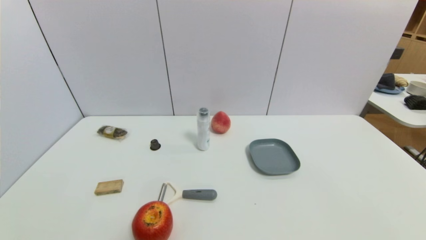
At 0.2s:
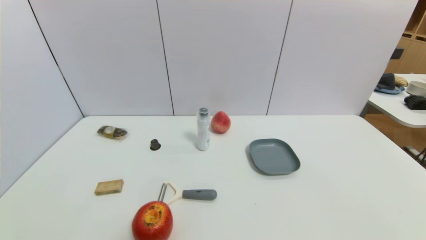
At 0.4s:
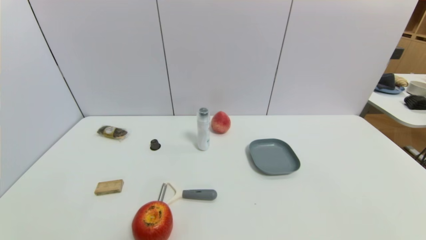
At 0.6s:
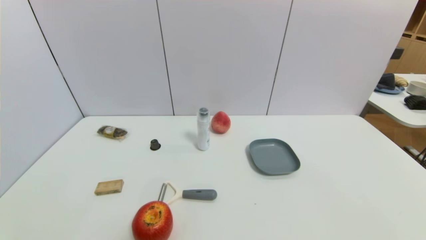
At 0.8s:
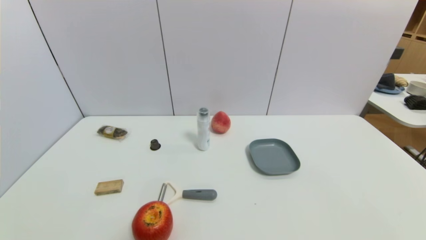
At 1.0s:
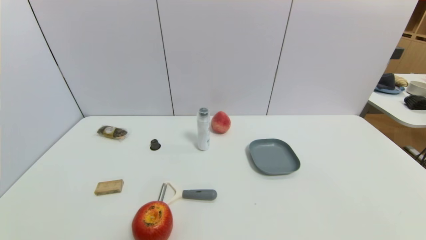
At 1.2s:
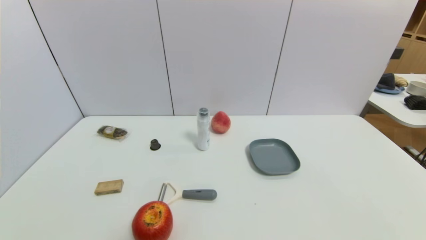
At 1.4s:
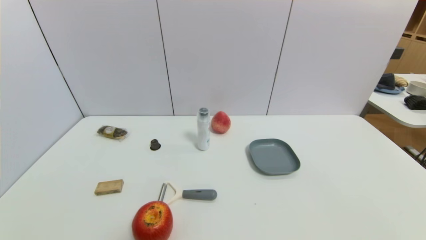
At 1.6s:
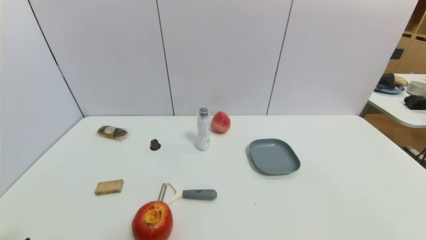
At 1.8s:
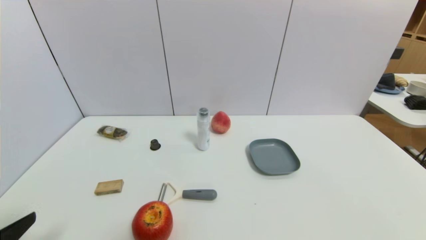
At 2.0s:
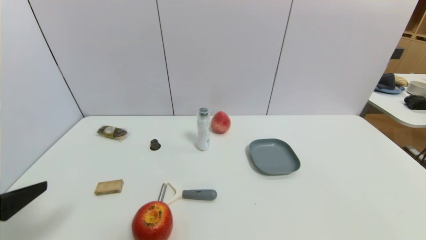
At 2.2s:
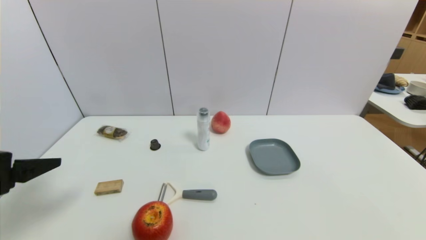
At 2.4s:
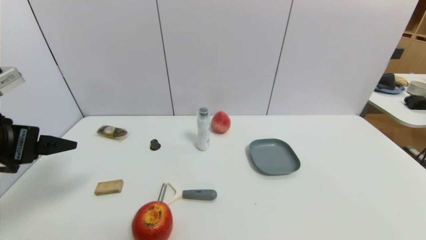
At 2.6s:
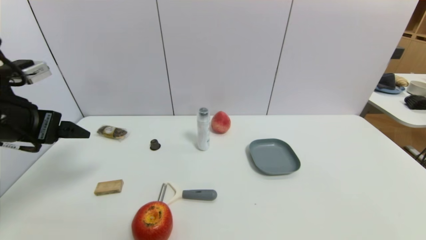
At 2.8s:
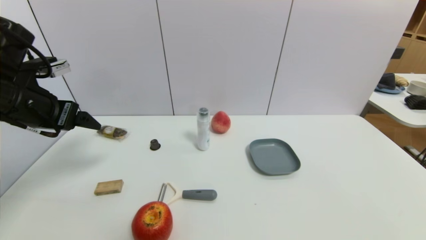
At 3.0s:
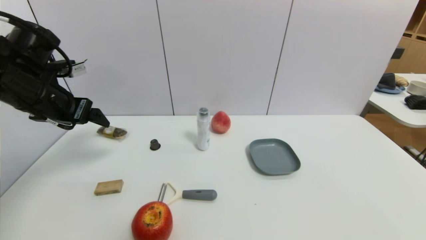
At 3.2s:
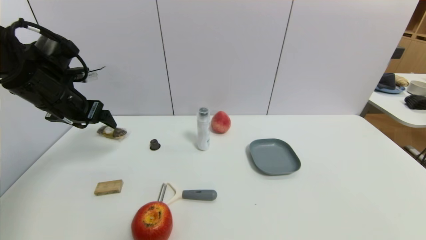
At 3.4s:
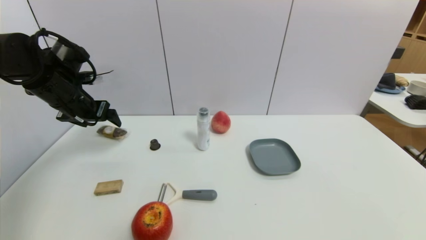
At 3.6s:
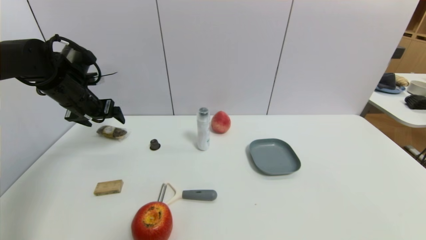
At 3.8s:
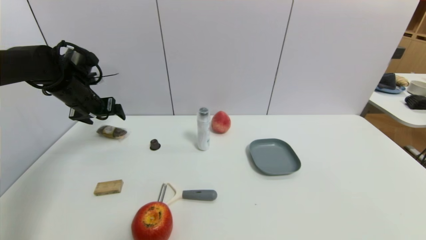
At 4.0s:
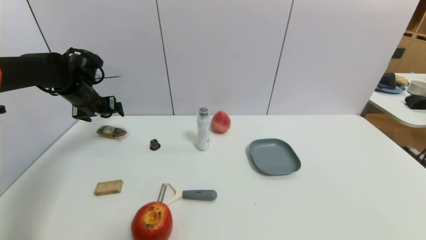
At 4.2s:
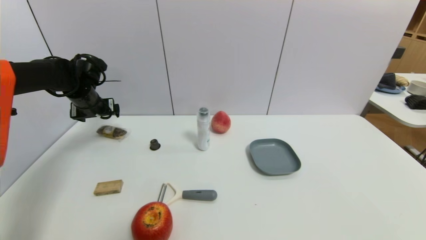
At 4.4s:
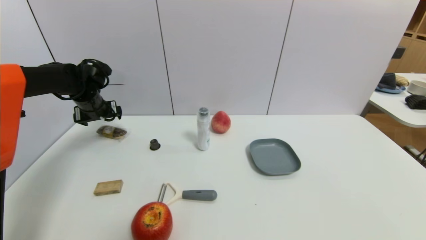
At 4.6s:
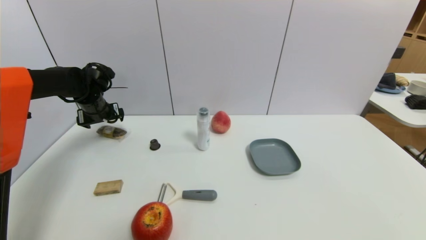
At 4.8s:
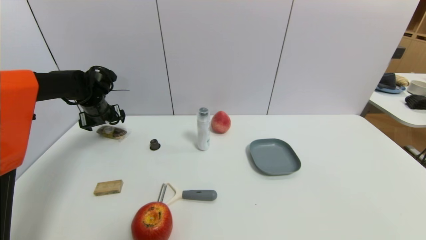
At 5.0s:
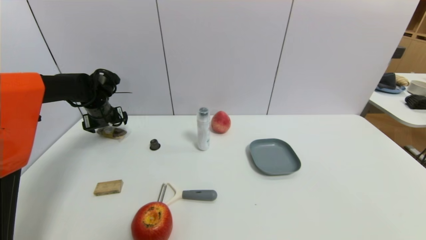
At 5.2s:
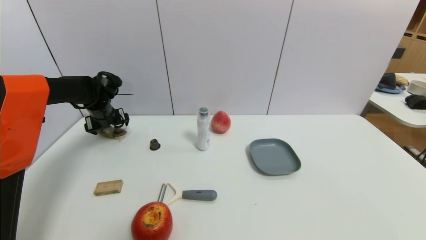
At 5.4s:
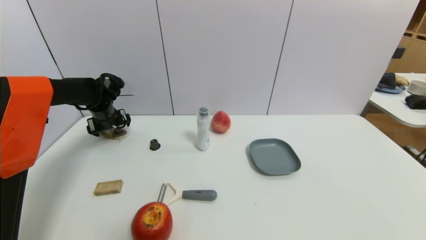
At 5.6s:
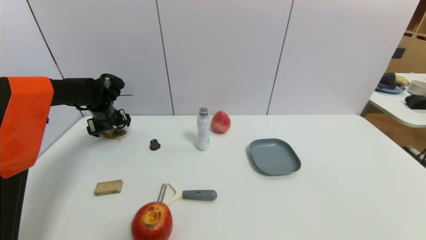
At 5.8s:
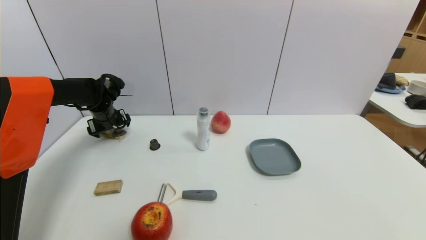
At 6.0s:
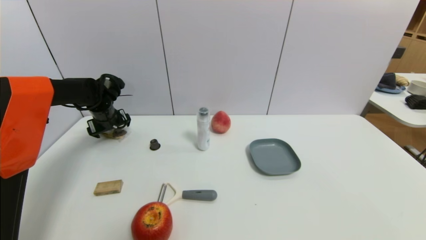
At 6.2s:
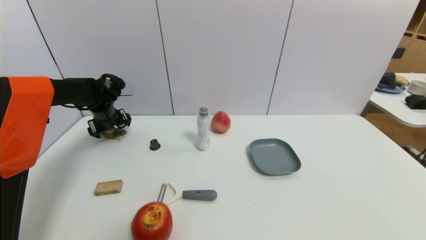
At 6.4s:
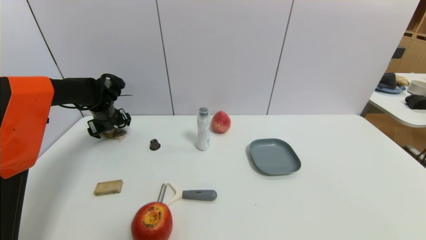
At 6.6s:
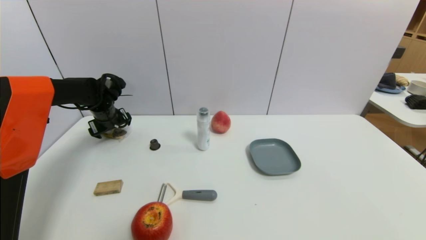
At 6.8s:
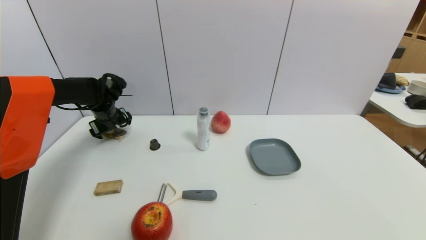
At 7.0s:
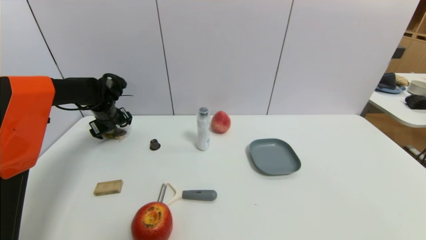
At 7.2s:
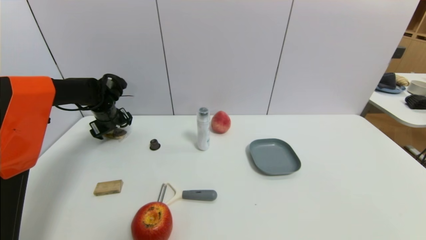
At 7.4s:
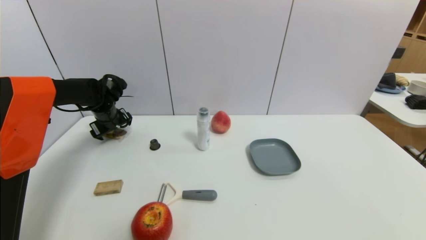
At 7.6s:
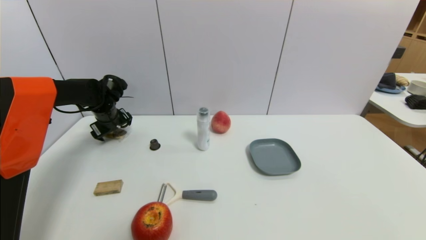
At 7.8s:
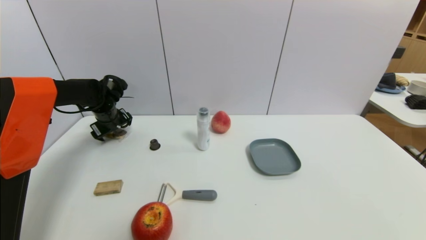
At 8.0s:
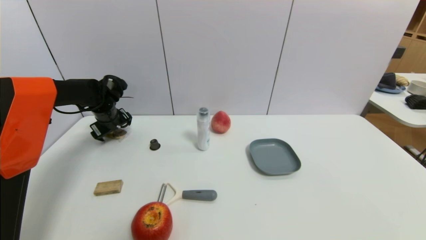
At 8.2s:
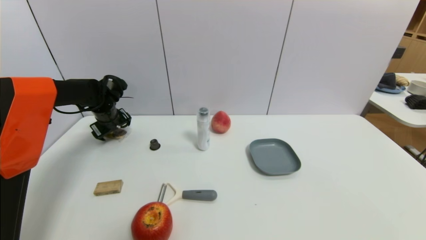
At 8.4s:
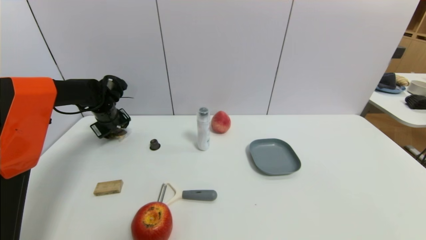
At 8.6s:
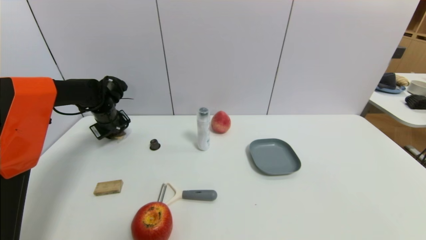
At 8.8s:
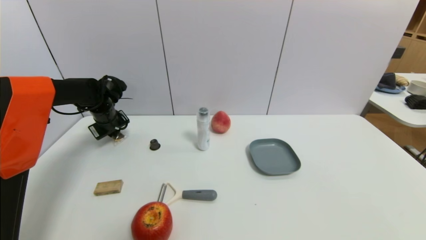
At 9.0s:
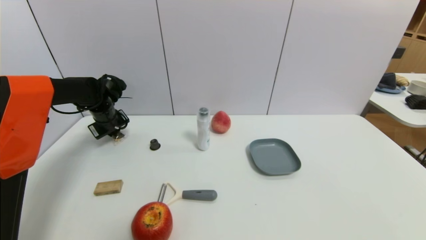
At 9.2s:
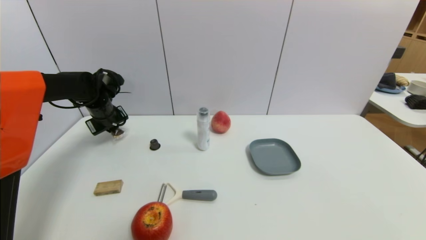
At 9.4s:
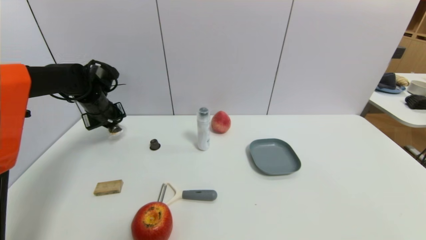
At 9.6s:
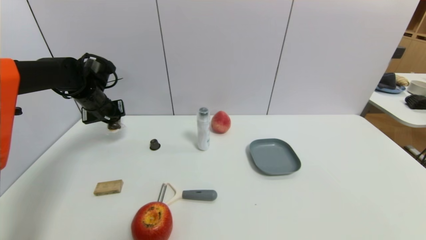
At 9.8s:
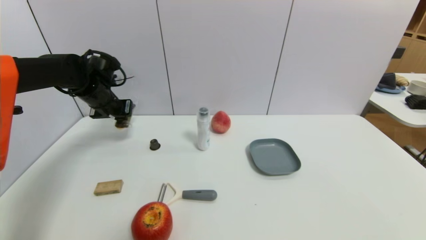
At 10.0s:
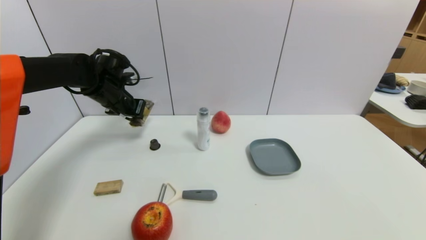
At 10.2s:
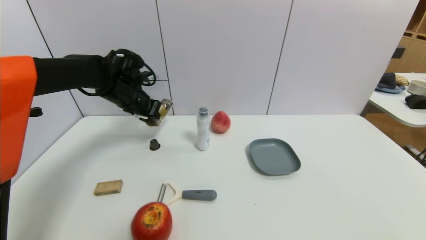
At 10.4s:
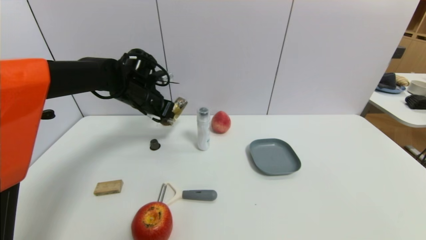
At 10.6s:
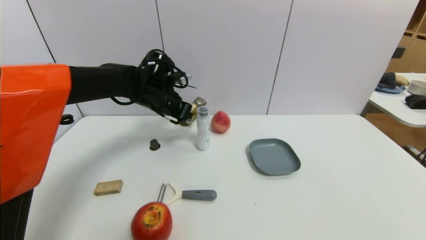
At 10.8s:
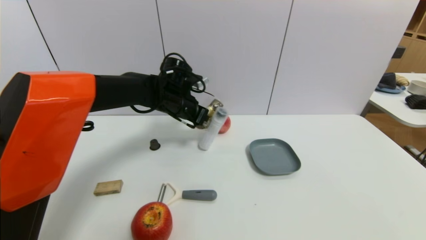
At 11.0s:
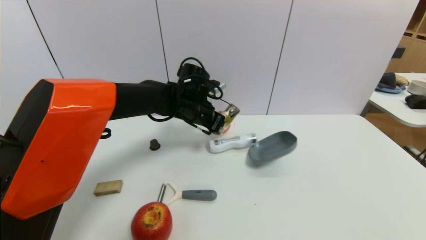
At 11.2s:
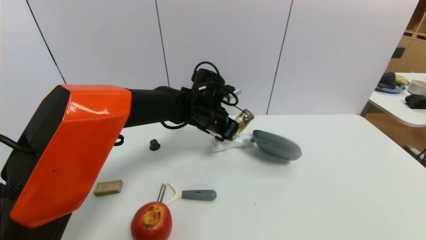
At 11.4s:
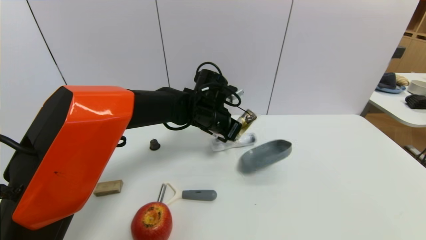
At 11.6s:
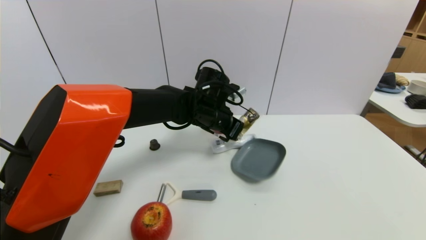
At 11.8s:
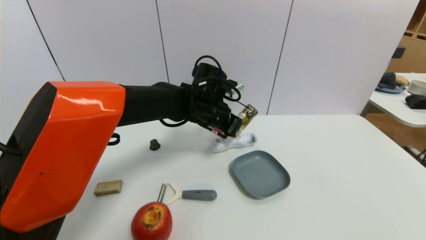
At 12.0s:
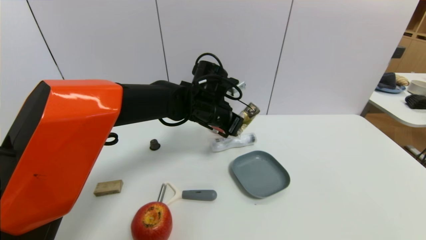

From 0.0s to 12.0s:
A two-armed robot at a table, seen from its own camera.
Task of the whole recording: use a gripper to pick the target object and place on the dish.
Step, from 0.0s to 9.2s: Grasp the chocolate with the left gripper.
From 1.6s to 3.0s: The left gripper goes about 30 cm forward.
From 3.0s to 4.4s: The left gripper is displaced forward and downward by about 15 cm.
From 4.4s to 6.0s: The grippers move only a little.
From 6.0s to 7.6s: There are only small adjustments of the grippers.
From 7.6s to 9.0s: The left gripper closes up.
From 9.0s to 10.4s: The left gripper shifts roughly 15 cm to the right and upward.
From 10.4s to 12.0s: The left gripper heads to the right, covering approximately 15 cm.

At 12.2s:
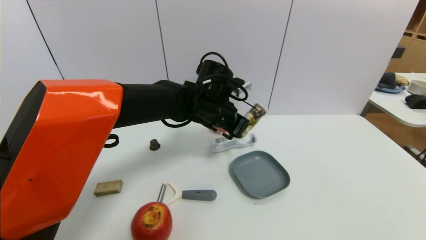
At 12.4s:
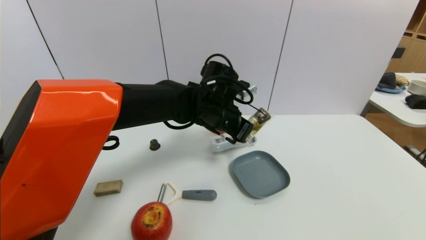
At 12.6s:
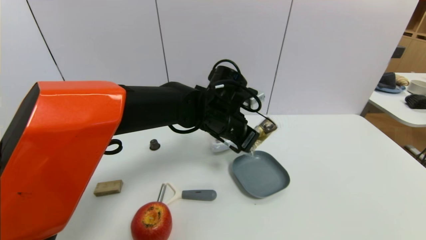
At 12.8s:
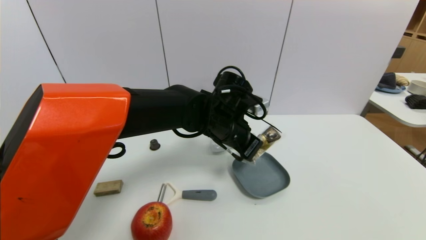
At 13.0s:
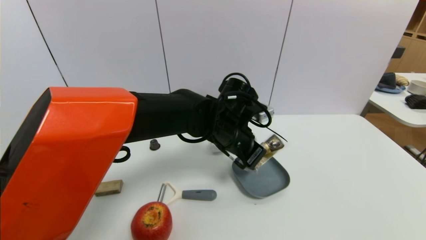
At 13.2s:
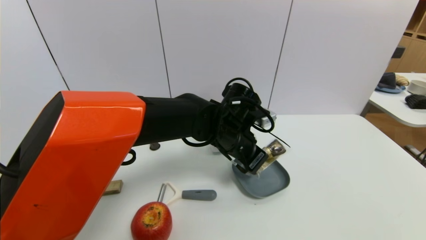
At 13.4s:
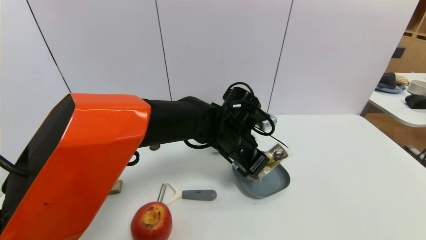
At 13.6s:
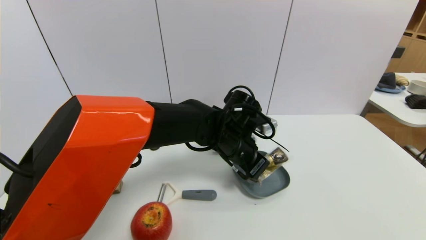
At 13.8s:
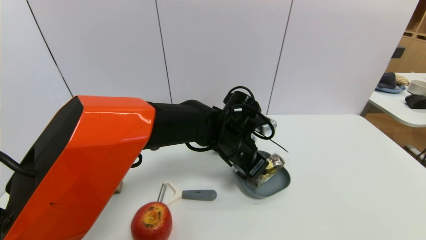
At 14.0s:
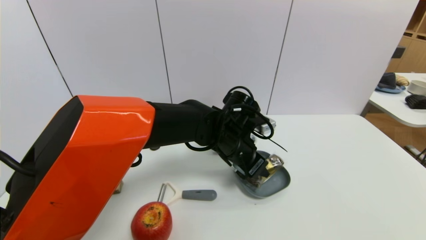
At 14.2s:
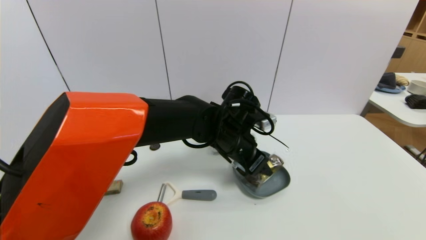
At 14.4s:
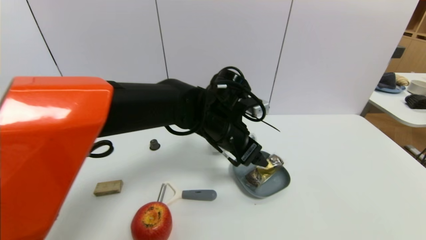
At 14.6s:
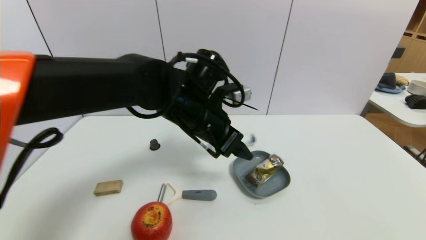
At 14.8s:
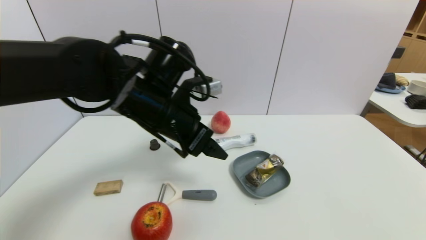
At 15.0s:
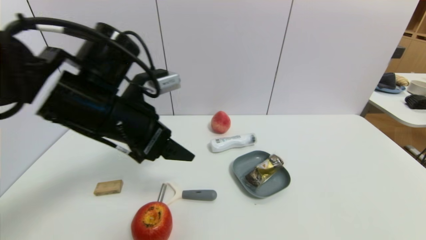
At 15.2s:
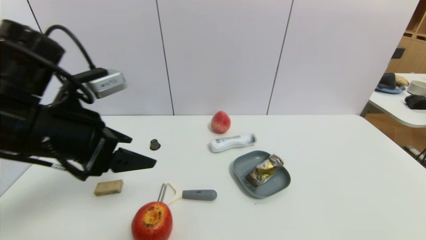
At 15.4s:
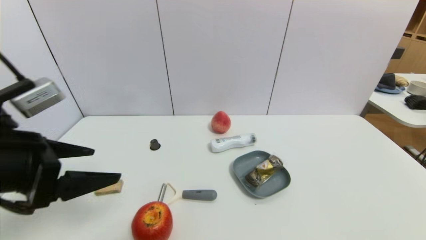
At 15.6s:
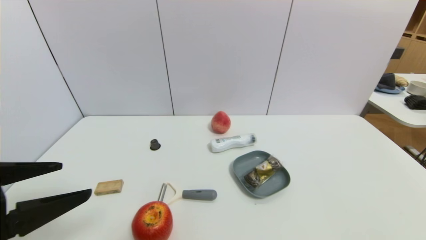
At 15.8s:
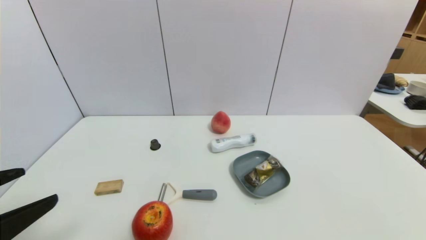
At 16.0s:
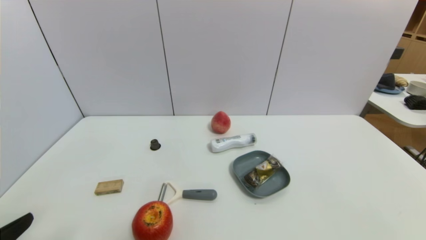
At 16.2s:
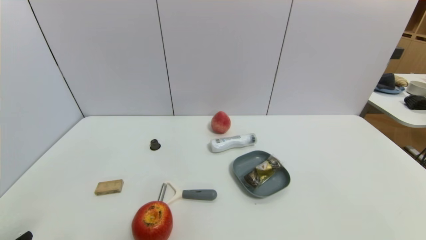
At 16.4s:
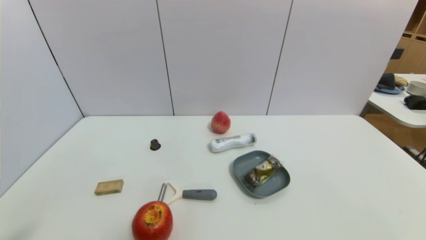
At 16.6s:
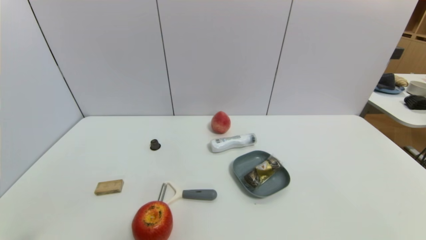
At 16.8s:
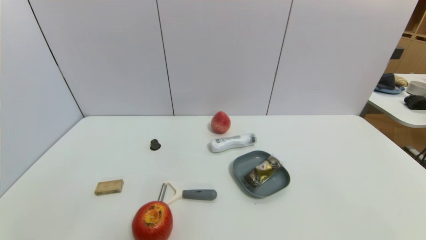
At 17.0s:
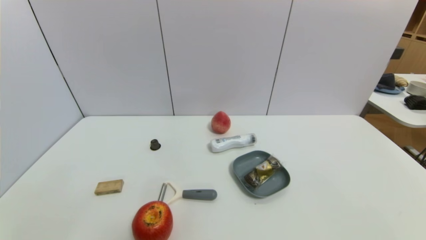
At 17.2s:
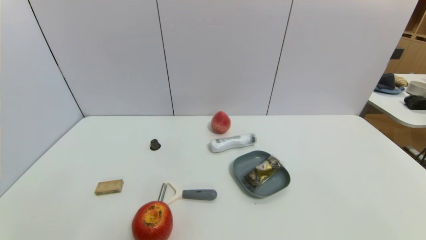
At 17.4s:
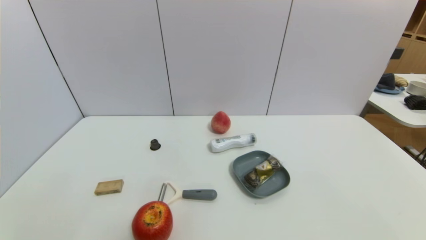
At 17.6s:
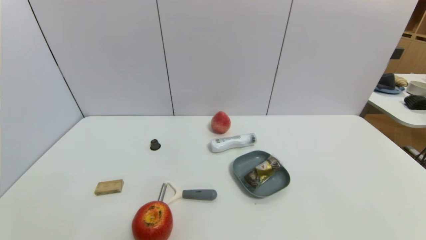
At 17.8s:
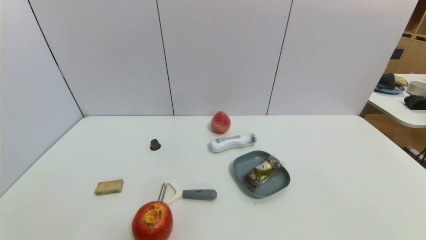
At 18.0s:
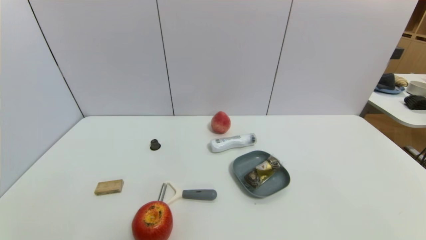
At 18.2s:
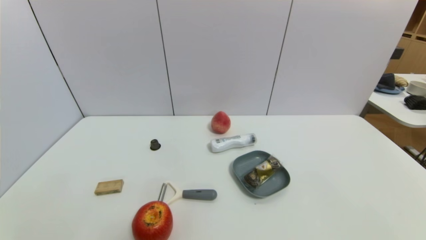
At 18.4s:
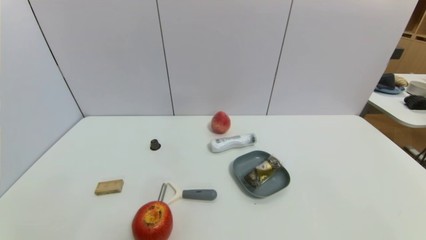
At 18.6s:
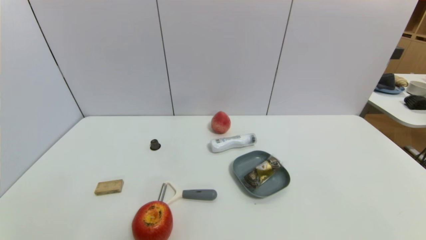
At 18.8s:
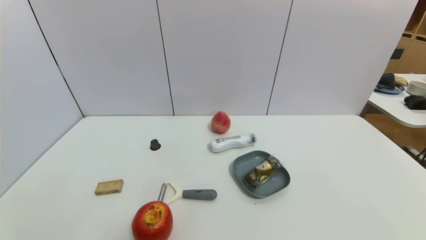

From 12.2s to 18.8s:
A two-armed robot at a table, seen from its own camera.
Task of the whole recording: use a gripper to pick the target object and place on the dish.
Step, from 12.2s to 14.6s: Place the chocolate on the dish with the left gripper.
From 12.2s to 13.8s: The left gripper shifts by about 10 cm.
From 13.8s to 15.4s: The left gripper travels to the left and backward by roughly 35 cm, and opens.
From 15.4s to 17.2s: The left gripper moves downward and backward, approximately 25 cm.
From 17.2s to 18.8s: Both grippers stay put.
